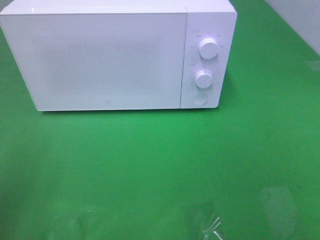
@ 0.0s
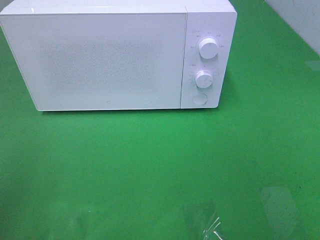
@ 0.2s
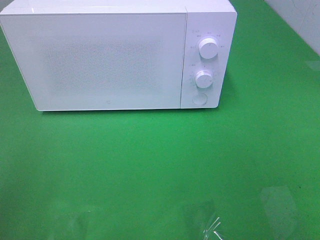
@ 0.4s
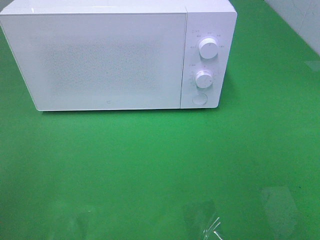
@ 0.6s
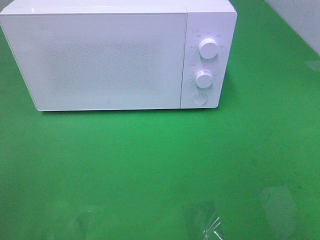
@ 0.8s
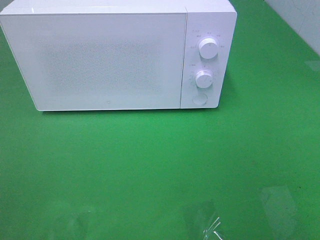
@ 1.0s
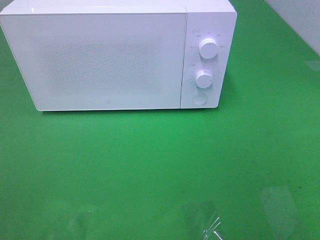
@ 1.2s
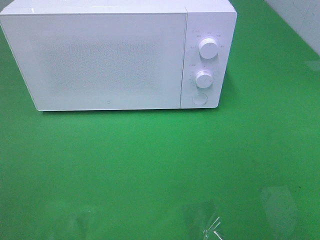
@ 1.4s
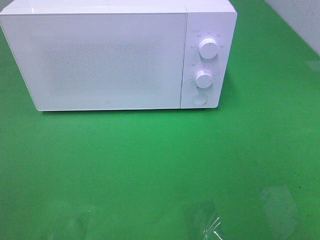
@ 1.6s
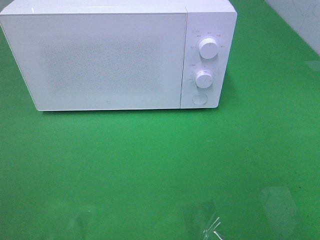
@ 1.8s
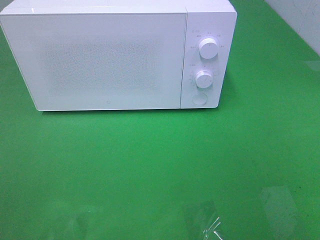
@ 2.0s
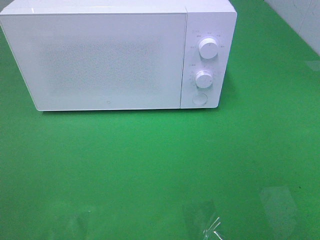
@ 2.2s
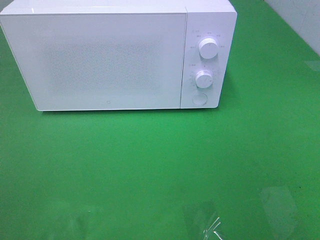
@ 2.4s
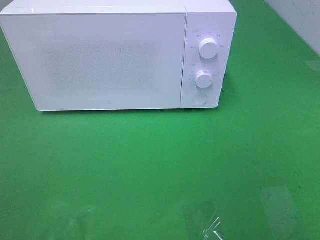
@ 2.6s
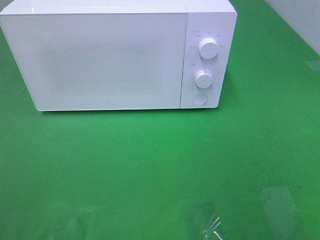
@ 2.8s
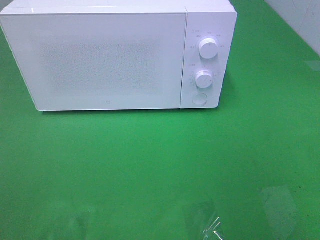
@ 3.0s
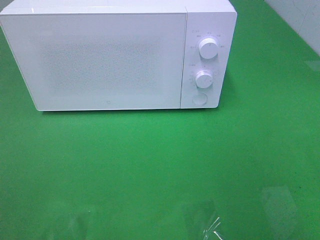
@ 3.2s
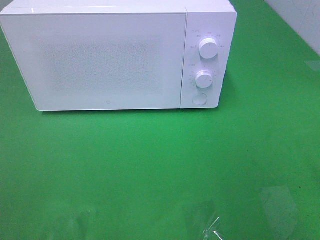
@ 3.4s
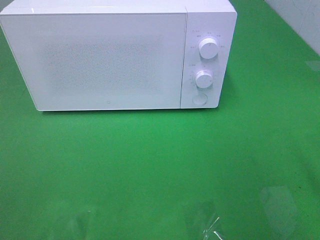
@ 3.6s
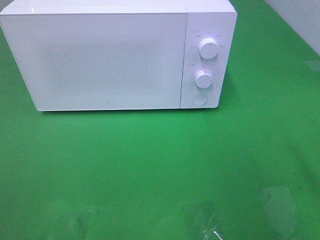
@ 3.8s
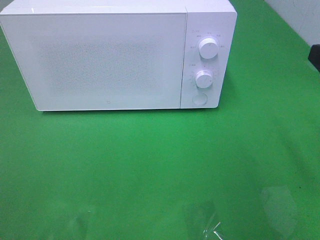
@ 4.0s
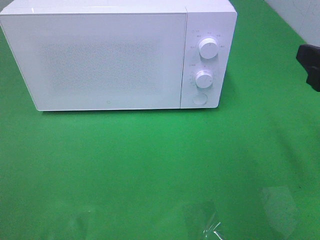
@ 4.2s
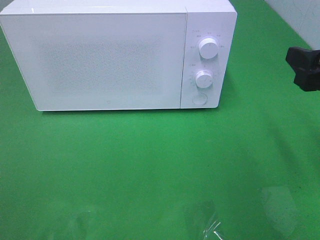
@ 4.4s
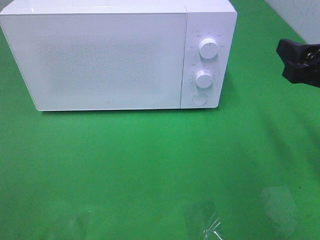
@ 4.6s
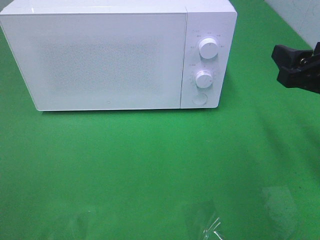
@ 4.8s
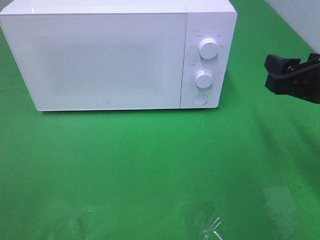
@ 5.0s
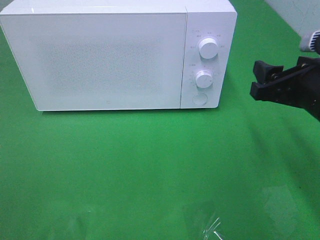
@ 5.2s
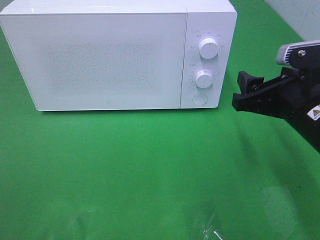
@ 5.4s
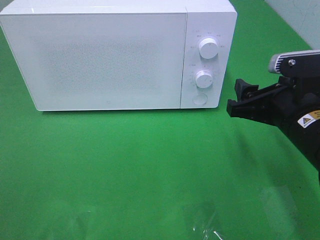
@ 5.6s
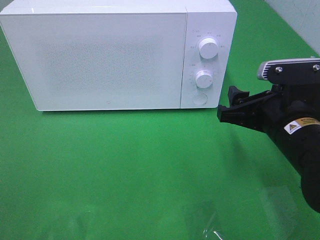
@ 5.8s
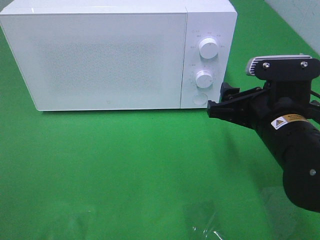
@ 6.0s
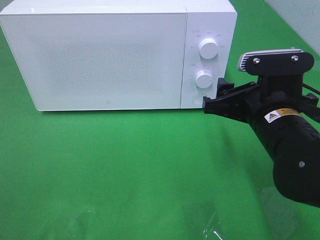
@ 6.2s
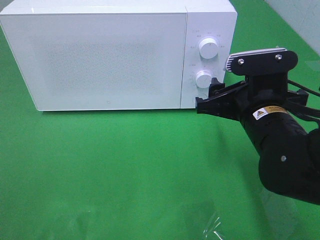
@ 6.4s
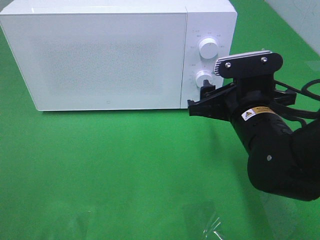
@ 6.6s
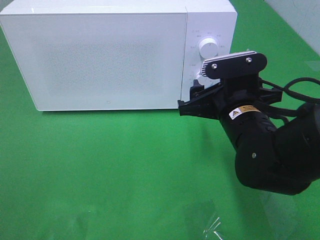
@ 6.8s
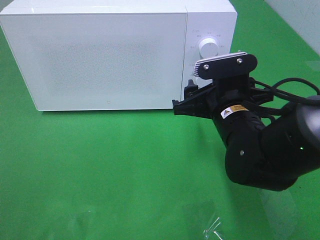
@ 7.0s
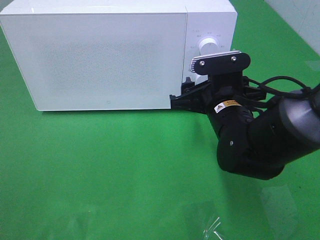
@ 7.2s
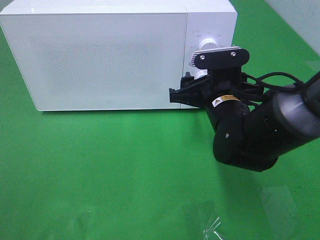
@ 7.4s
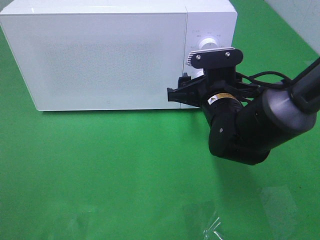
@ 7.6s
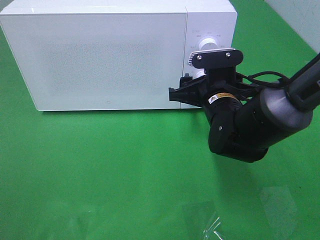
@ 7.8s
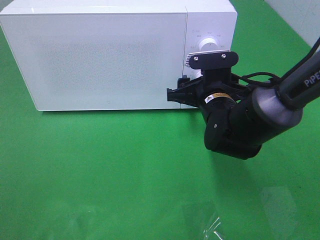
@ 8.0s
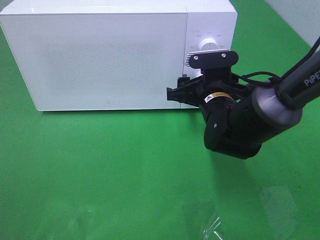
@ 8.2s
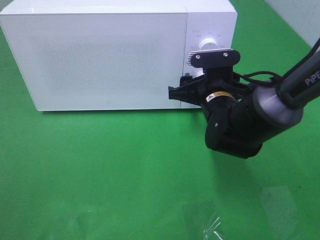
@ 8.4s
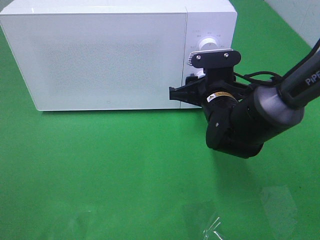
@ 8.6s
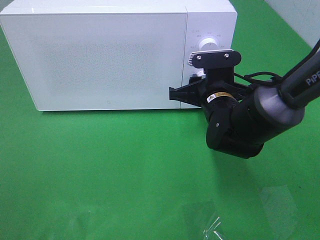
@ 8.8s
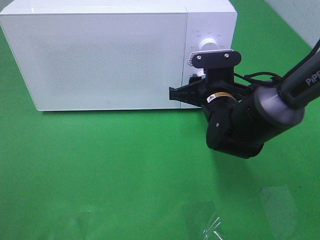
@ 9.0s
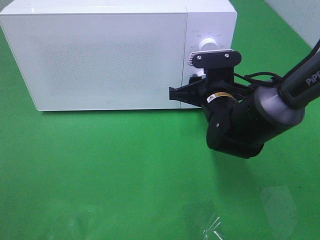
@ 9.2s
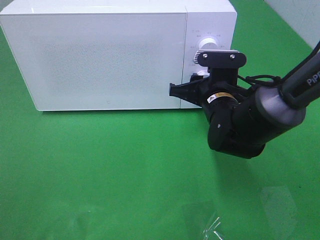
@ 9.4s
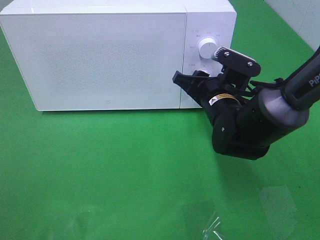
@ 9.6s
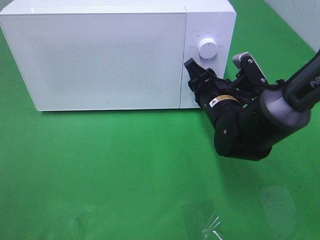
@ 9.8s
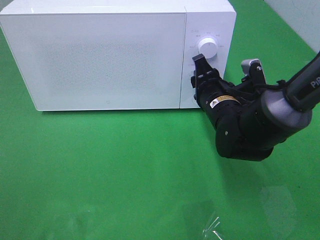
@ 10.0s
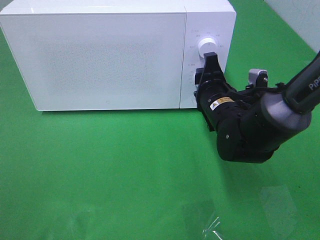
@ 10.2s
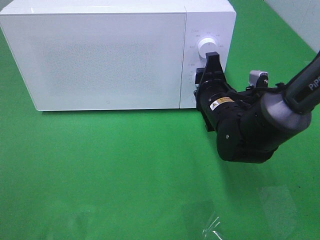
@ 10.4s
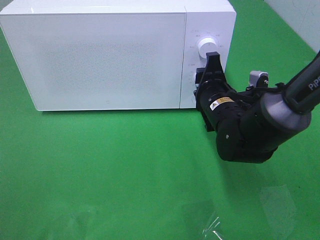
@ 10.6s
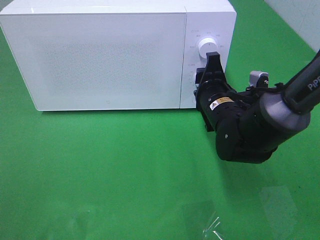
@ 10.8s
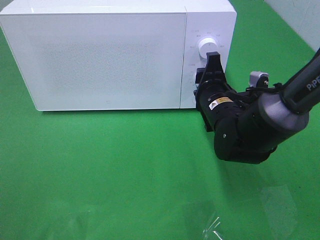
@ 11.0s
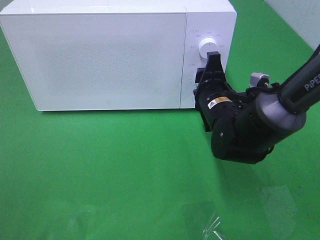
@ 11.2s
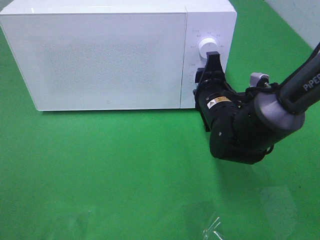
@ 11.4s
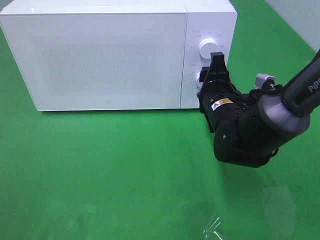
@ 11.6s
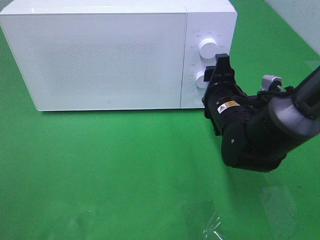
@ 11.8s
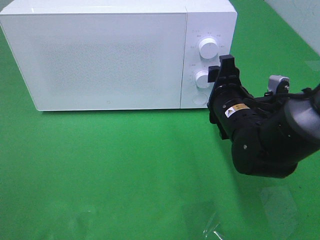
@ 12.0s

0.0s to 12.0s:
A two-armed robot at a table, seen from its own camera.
Task of the whole recording: Heat the burger.
3.0s to 4.4s: The right gripper travels forward and downward by roughly 15 cm.
4.4s to 6.0s: The right gripper goes about 10 cm to the left and downward.
6.0s to 7.6s: The right gripper moves forward and to the left, approximately 10 cm.
7.6s to 9.0s: The right gripper closes up.
10.4s to 12.0s: The grippers stay close to where they were, moving slightly.

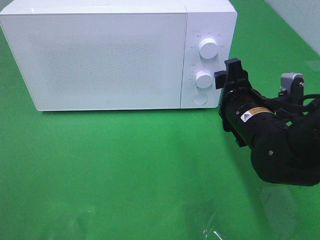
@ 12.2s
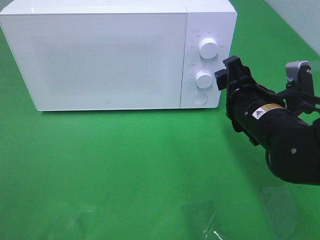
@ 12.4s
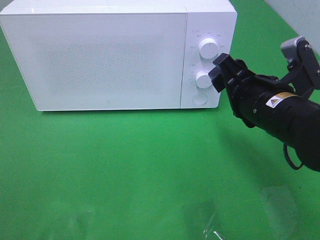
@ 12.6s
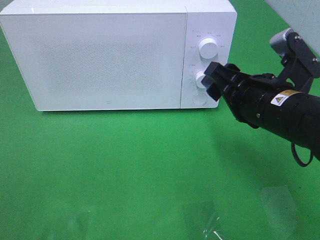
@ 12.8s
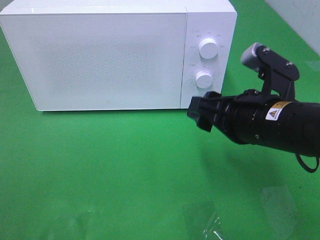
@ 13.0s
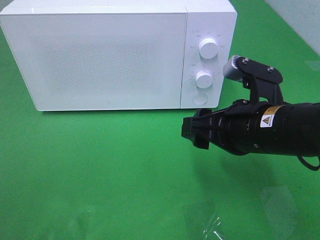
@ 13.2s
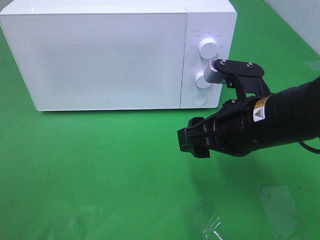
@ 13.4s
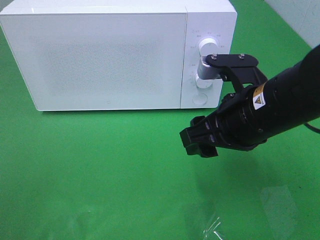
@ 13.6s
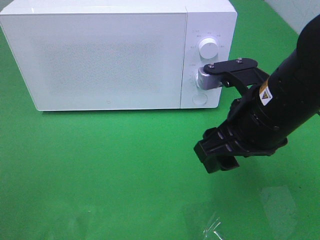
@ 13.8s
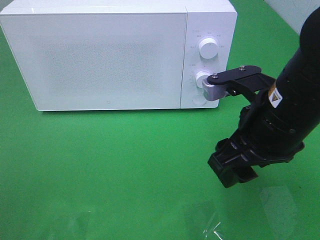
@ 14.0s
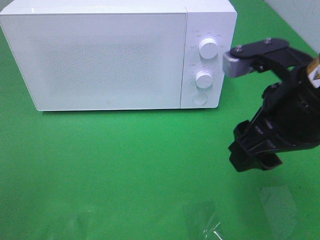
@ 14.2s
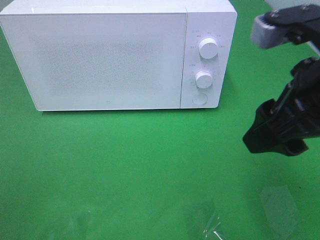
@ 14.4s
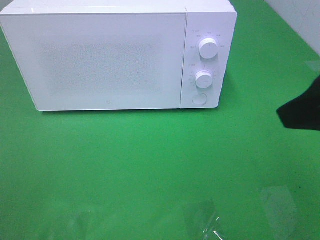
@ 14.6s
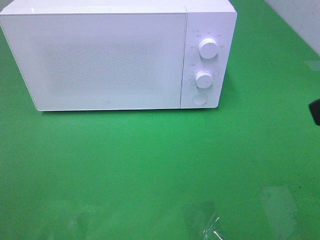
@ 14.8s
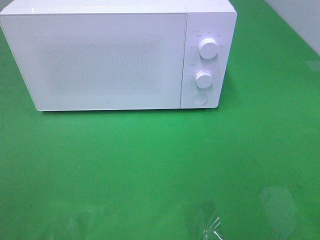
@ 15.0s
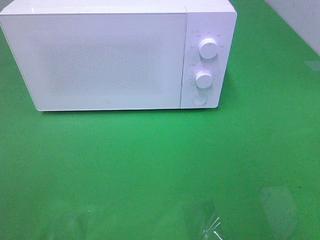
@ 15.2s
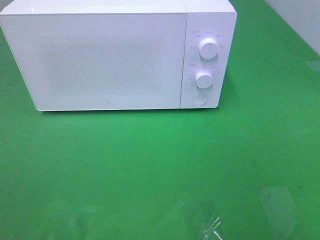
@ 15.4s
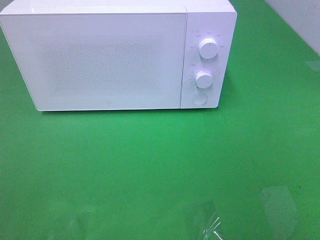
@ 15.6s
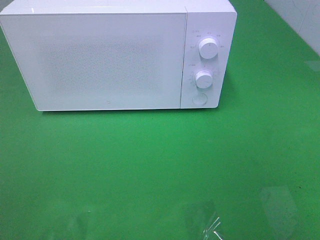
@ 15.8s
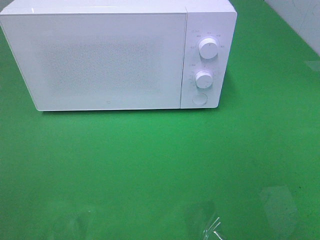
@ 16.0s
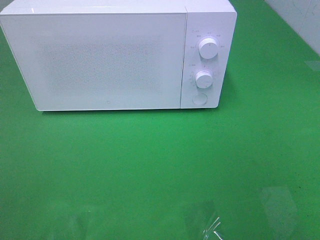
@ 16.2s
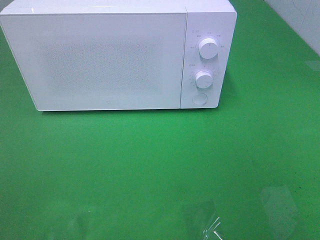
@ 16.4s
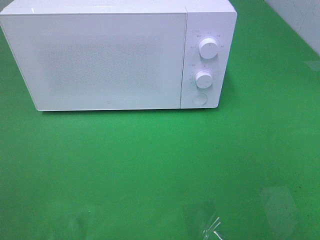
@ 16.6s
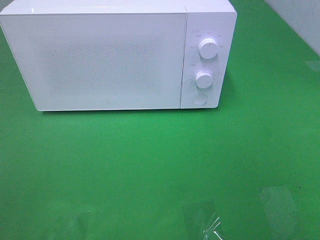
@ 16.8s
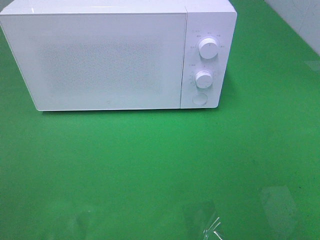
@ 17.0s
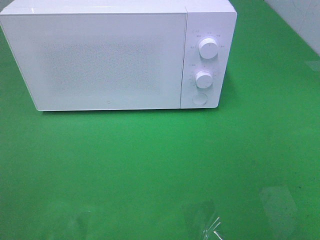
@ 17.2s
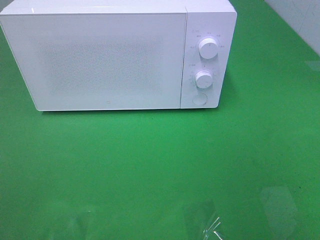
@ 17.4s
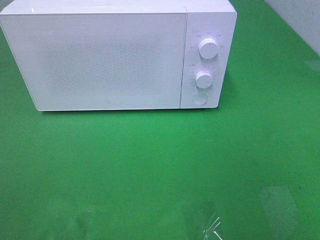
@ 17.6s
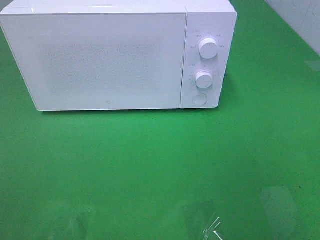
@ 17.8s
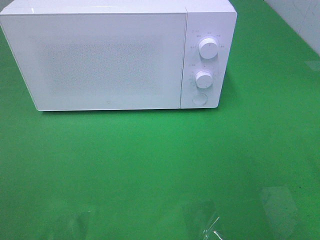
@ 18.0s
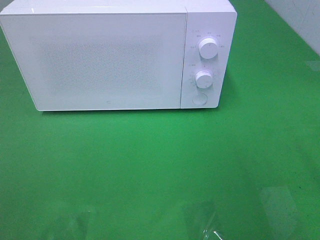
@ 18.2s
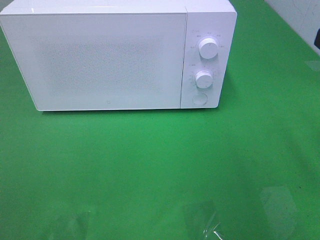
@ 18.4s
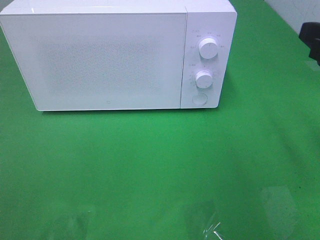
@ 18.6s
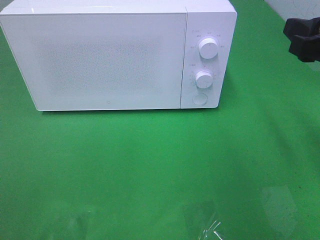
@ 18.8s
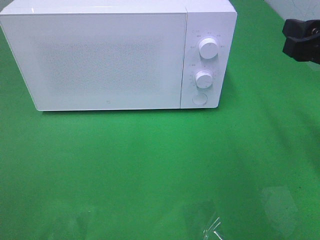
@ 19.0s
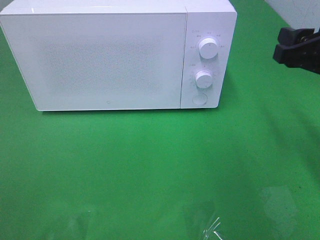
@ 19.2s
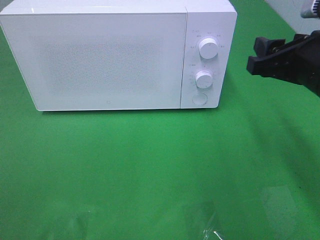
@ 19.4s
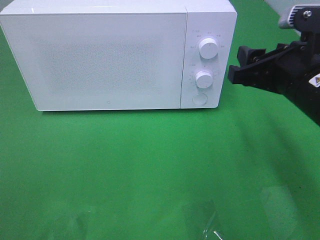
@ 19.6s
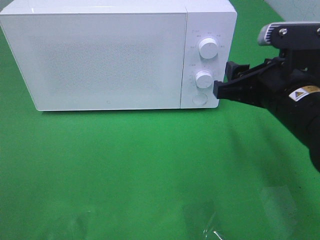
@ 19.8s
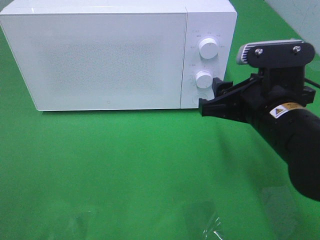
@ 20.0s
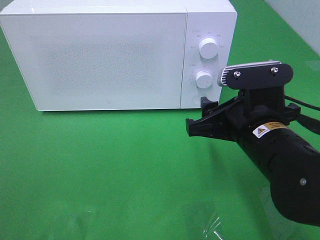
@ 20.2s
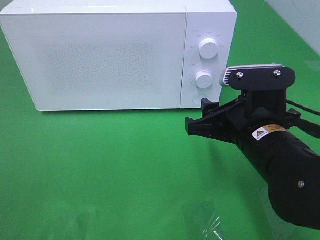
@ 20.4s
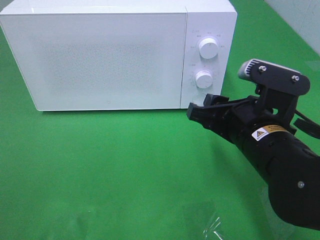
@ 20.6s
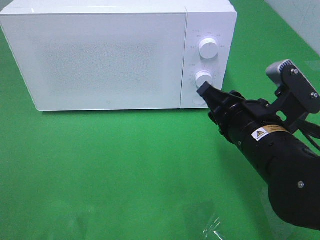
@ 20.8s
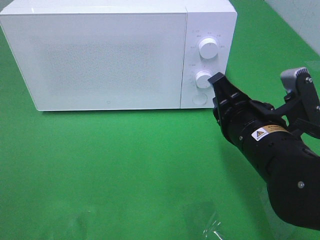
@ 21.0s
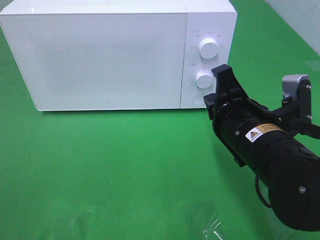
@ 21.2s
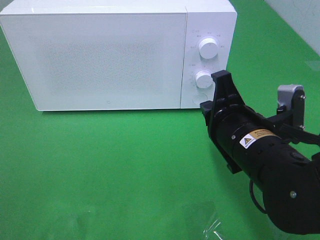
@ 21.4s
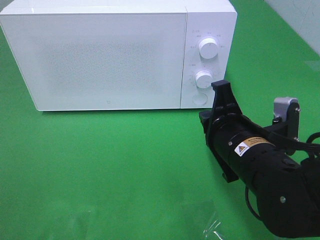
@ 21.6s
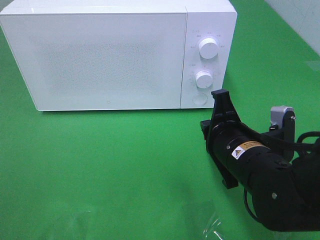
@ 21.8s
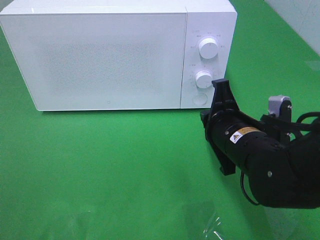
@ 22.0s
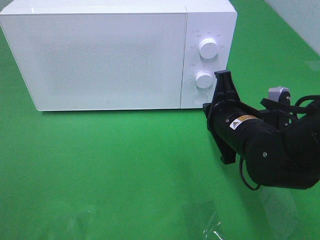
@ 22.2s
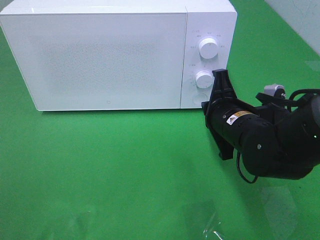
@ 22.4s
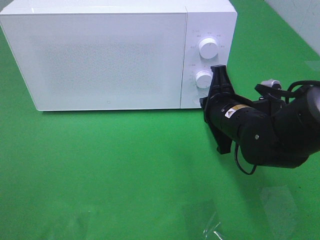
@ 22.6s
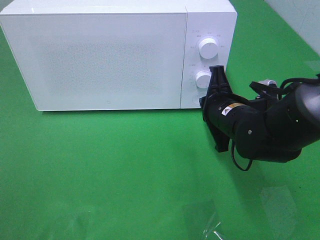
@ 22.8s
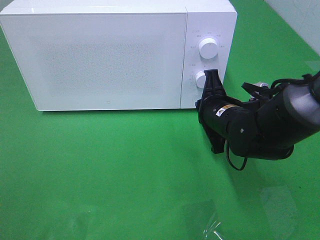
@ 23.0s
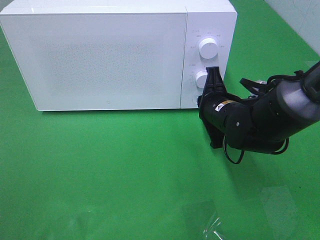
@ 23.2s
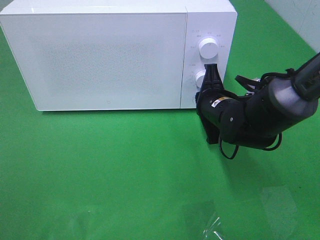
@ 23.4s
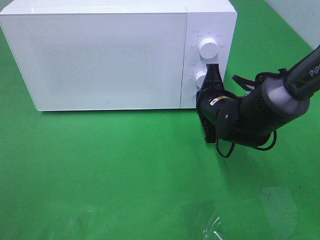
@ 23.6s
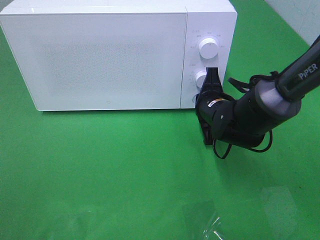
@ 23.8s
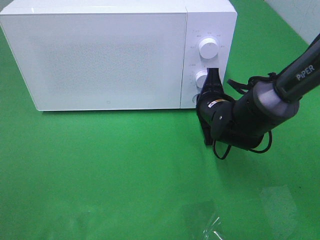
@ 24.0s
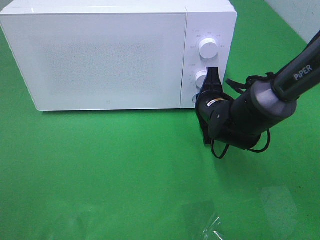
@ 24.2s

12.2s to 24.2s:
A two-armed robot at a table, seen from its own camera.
Task of the whole recording: Heat the burger.
12.2s to 13.8s: The right gripper is displaced upward and backward by some 10 cm.
13.8s to 15.2s: The right gripper heads backward, to the right and upward, covering roughly 25 cm.
18.2s to 19.8s: The right gripper goes roughly 15 cm to the left, downward and forward.
19.8s to 21.2s: The right gripper shifts by roughly 5 cm, and closes.
21.2s to 22.6s: The right gripper heads forward, covering some 10 cm.
22.6s to 24.2s: The right gripper moves forward, about 5 cm.
